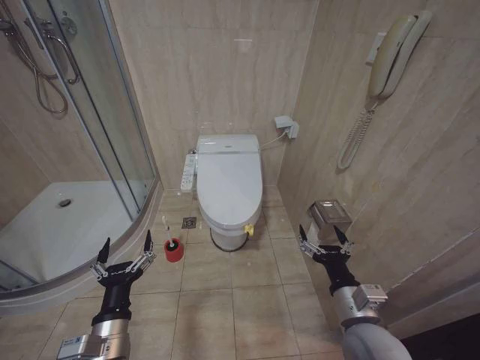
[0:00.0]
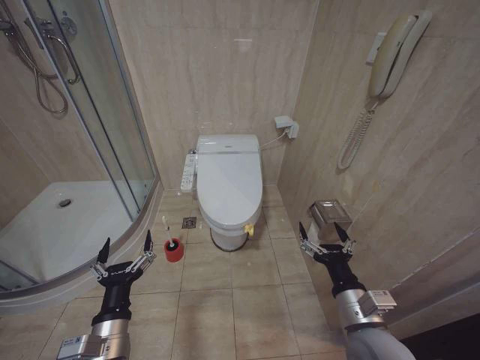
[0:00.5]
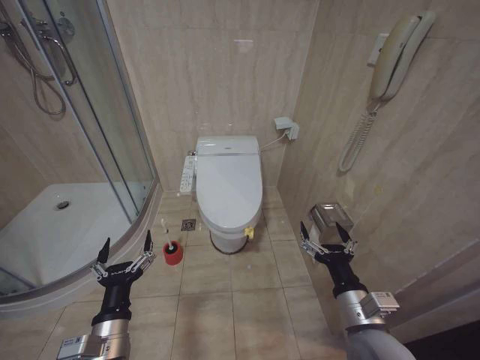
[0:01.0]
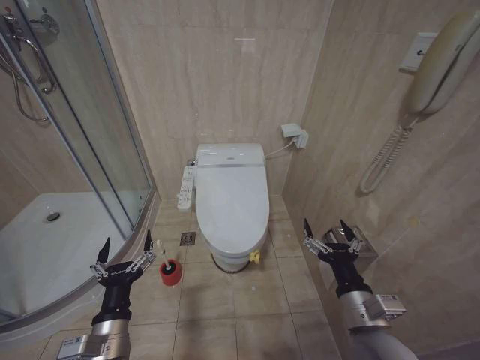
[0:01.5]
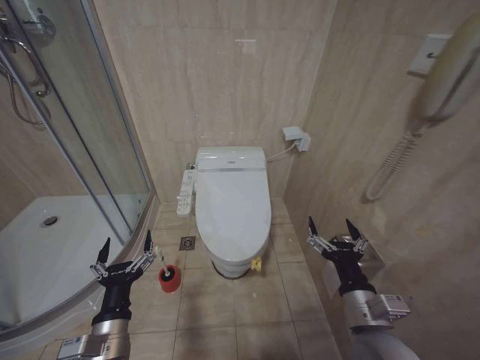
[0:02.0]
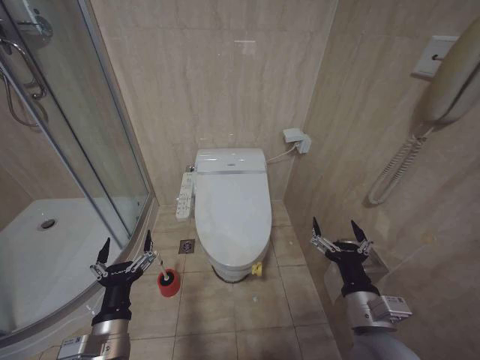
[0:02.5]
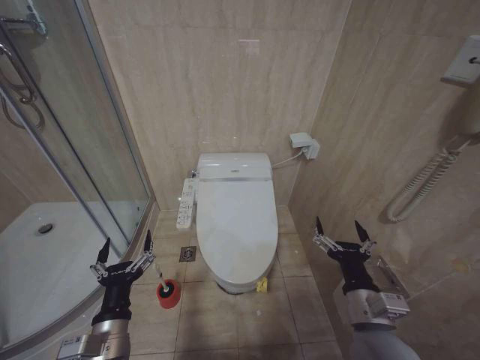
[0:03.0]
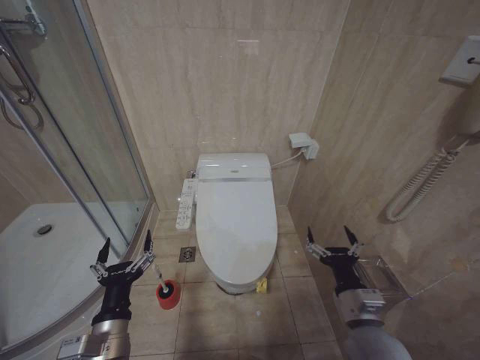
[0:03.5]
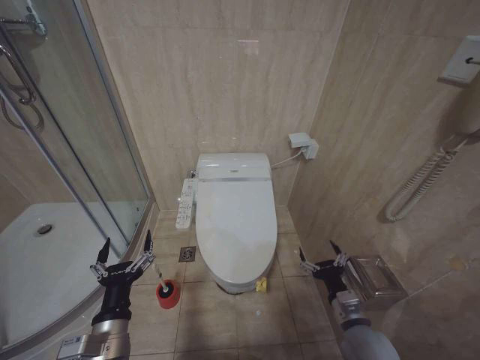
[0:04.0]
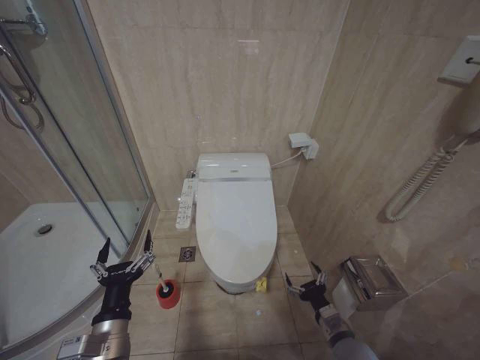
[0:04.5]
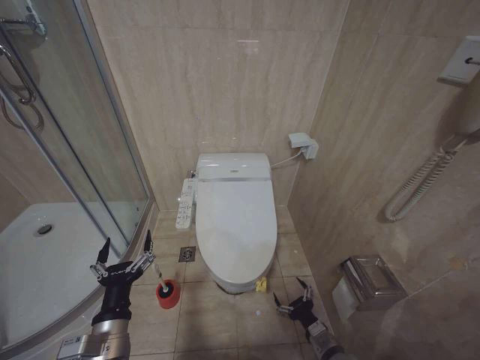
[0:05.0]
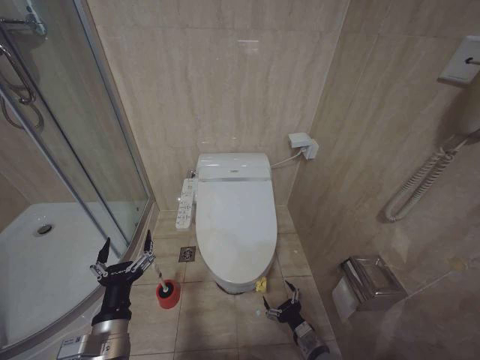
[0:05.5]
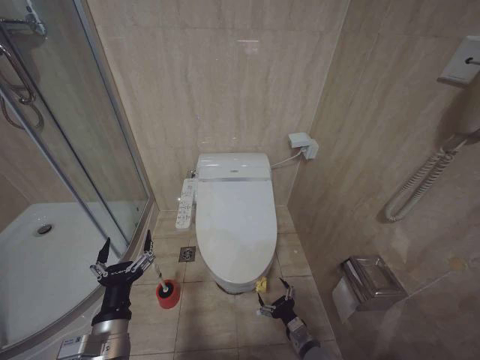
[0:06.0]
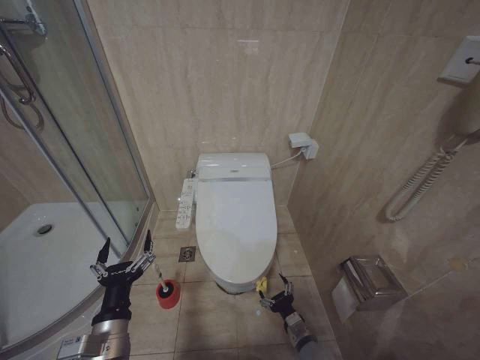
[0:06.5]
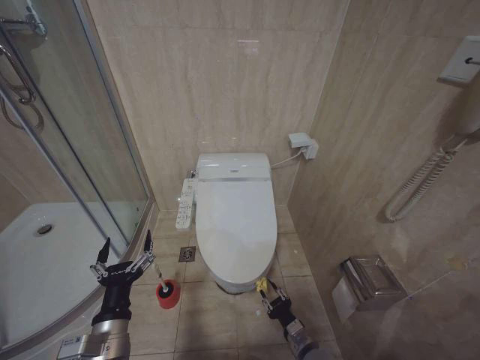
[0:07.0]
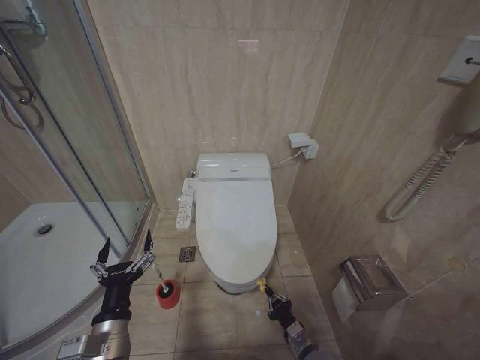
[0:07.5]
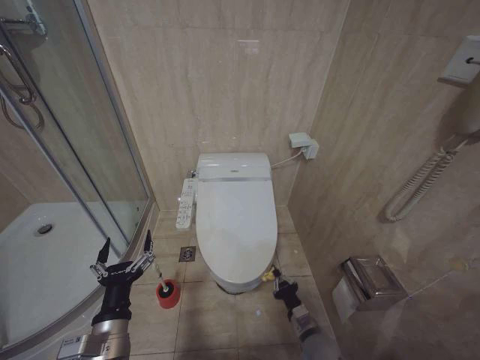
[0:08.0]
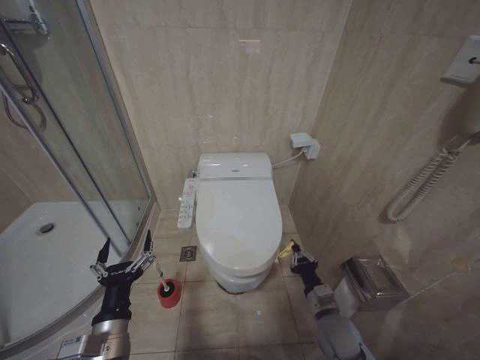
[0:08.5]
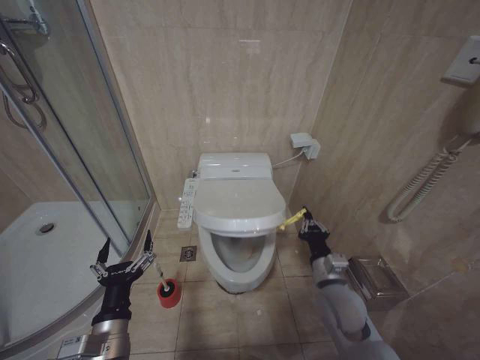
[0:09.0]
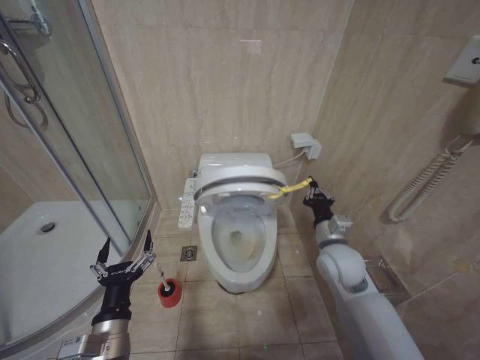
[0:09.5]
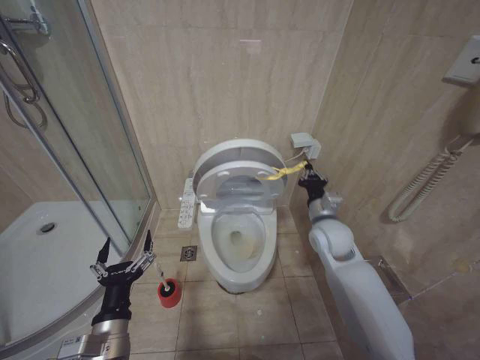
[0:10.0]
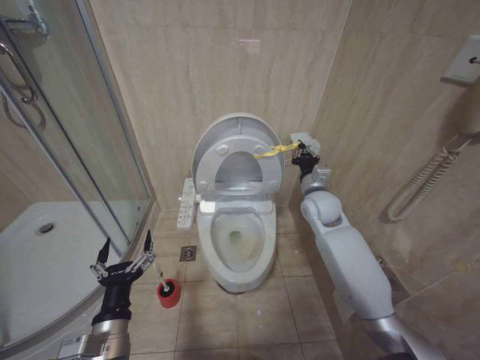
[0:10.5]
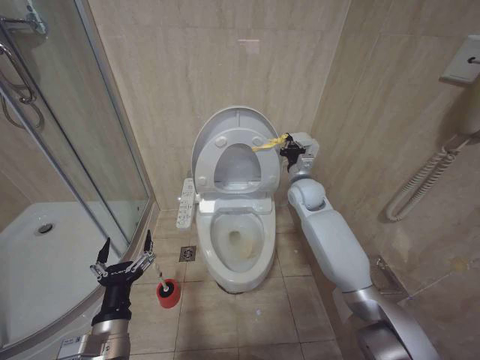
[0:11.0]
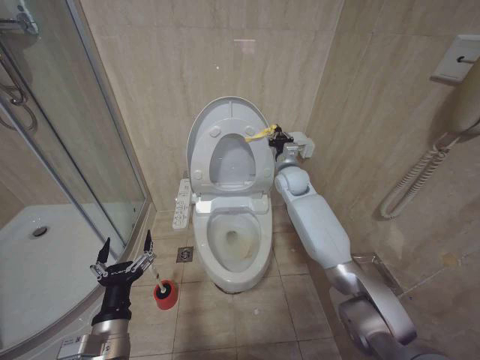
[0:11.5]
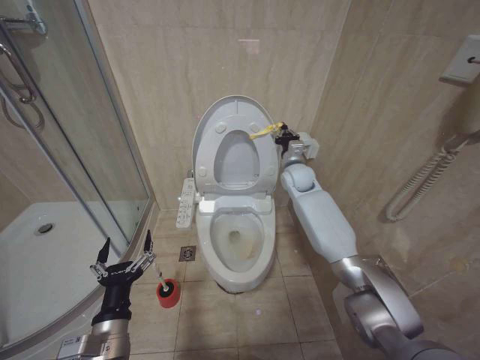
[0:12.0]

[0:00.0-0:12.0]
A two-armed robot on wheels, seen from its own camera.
Task of the whole recording: Open the toilet lid, clean the toilet bowl with a toilet brush, close the toilet lid, and flush.
0:02.0 to 0:04.0: The right gripper travels downward by about 10 cm.
0:04.0 to 0:06.0: The right gripper heads downward, covering roughly 15 cm.
0:06.0 to 0:08.0: The right gripper closes up.
0:08.0 to 0:10.0: The right gripper is displaced upward and forward by about 30 cm.
0:10.0 to 0:12.0: The right gripper is displaced forward and upward by roughly 20 cm.

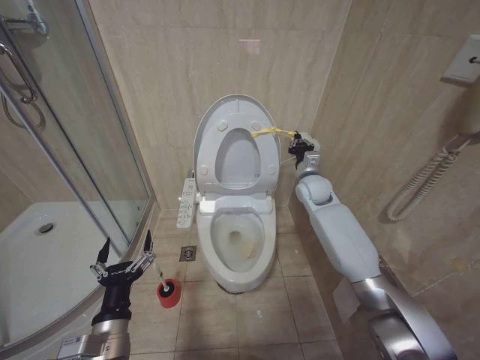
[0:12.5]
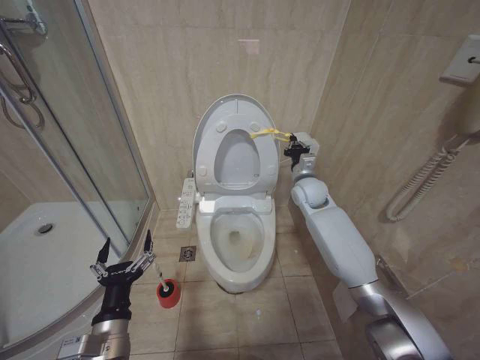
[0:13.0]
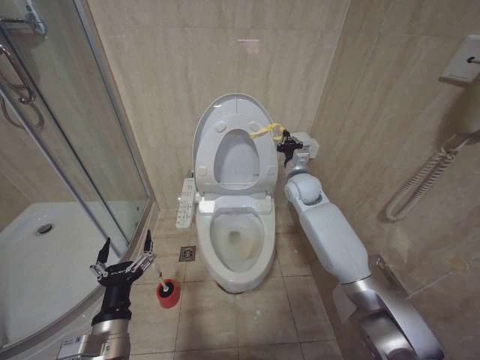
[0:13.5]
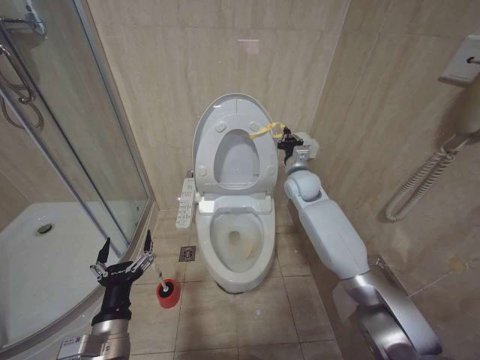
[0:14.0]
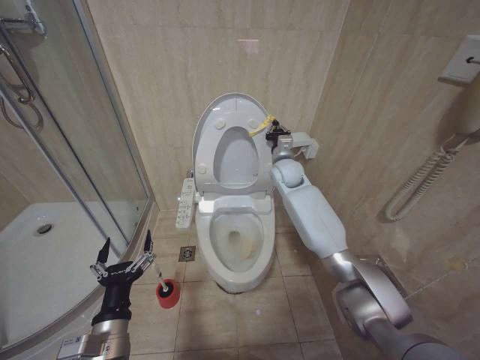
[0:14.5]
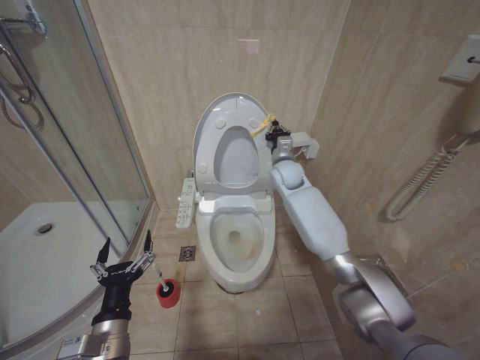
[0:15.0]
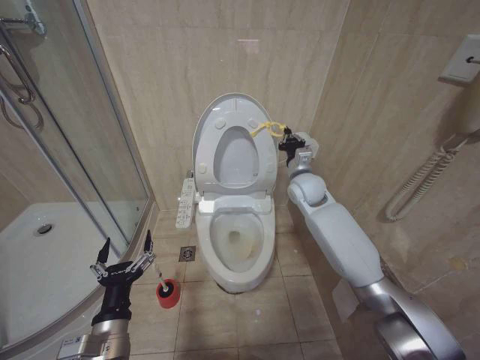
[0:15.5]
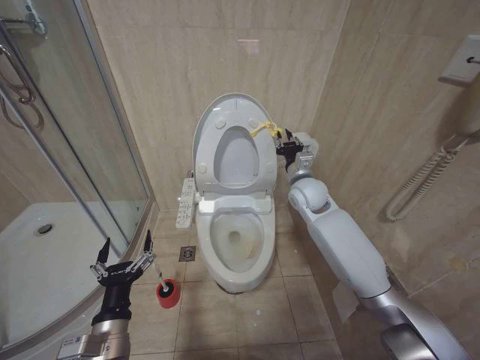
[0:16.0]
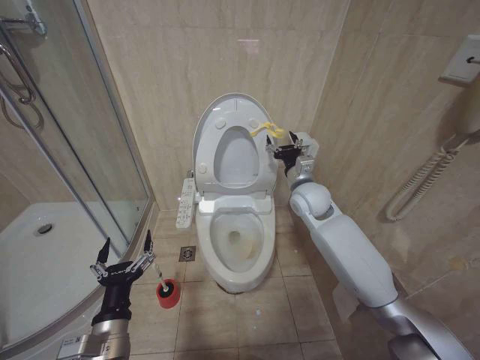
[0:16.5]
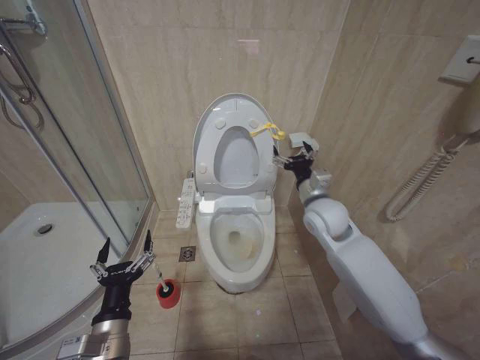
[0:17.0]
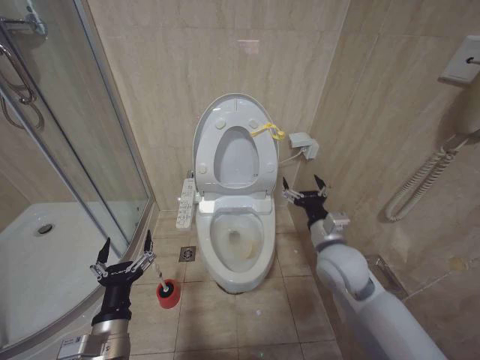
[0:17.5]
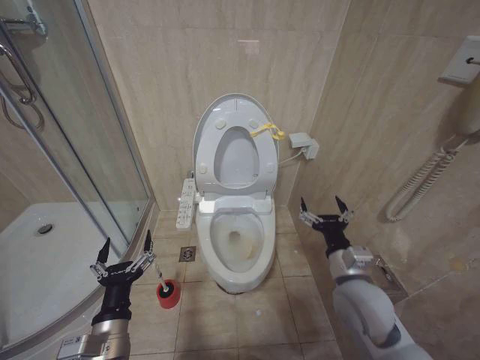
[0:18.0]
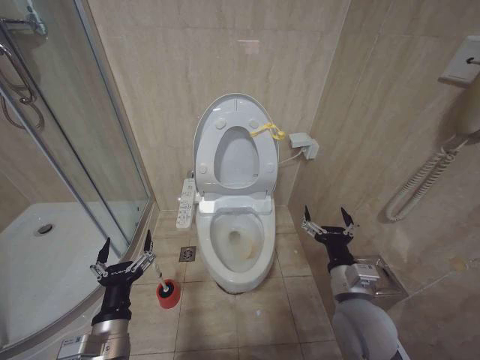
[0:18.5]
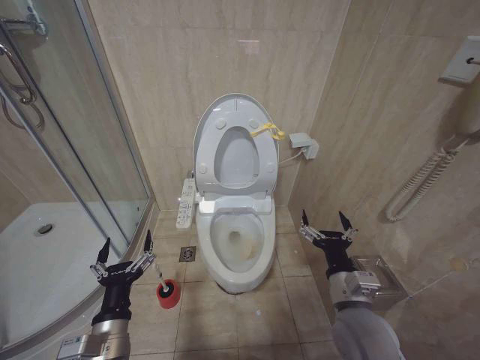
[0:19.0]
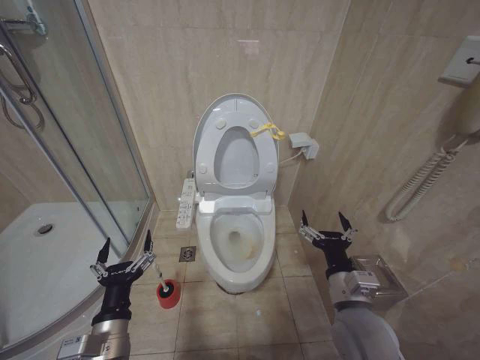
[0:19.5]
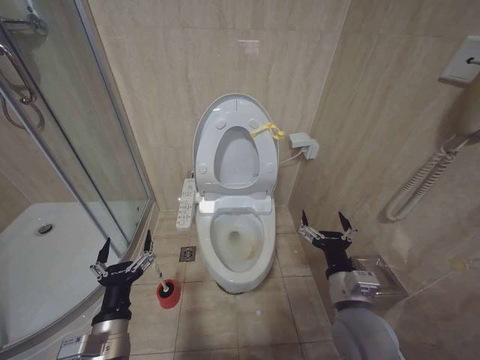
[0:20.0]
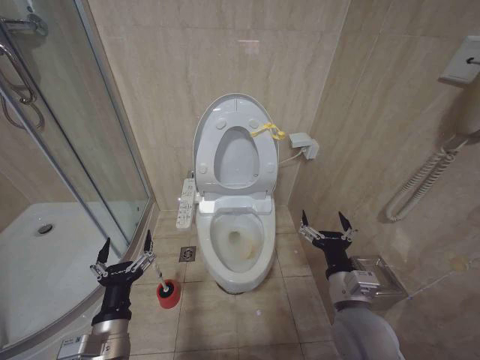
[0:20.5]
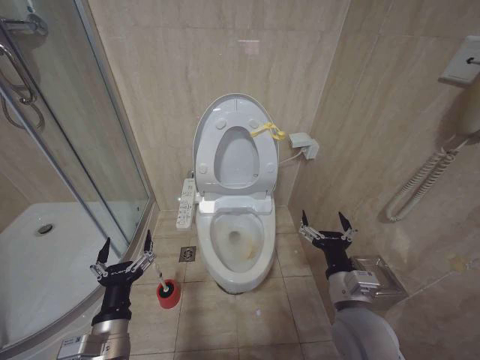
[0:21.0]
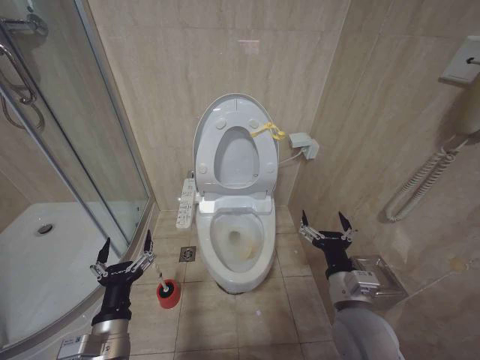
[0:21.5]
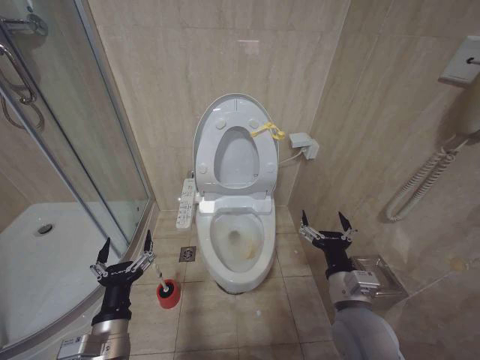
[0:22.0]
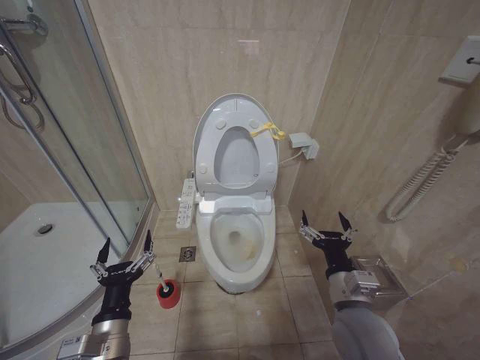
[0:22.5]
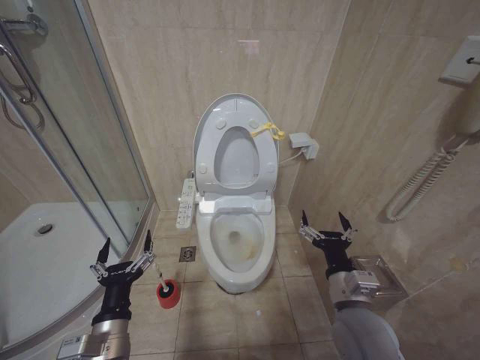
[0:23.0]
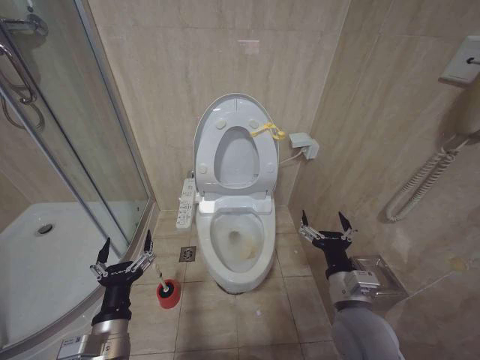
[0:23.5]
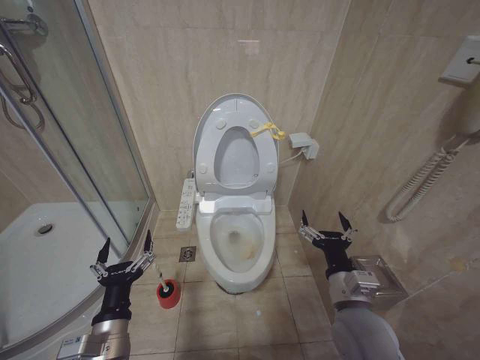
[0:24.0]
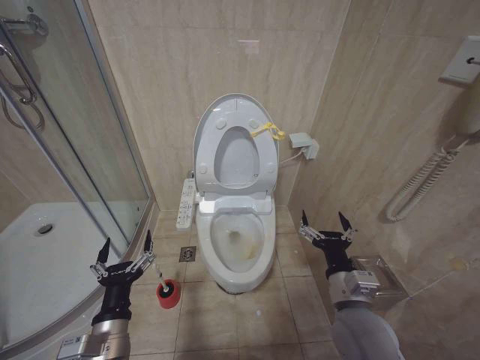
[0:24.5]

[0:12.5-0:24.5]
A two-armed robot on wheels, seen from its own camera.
Task of the whole recording: Open the toilet lid, clean the toilet bowl with a toilet brush, close the toilet lid, and flush.
0:12.5 to 0:14.5: The right gripper is displaced to the left by approximately 5 cm.
0:14.5 to 0:16.5: The right gripper shifts roughly 10 cm backward, and opens.
0:16.5 to 0:18.5: The right gripper is displaced backward and downward by roughly 25 cm, and opens its fingers.
0:18.5 to 0:20.5: The grippers move only a little.
0:20.5 to 0:24.5: The two grippers keep their place.

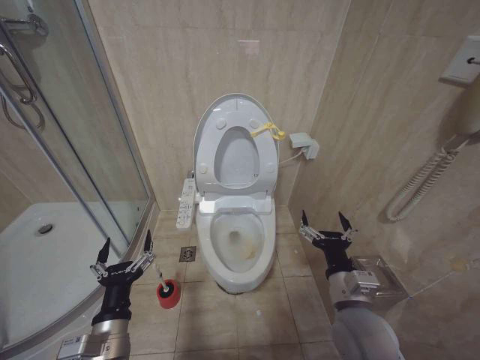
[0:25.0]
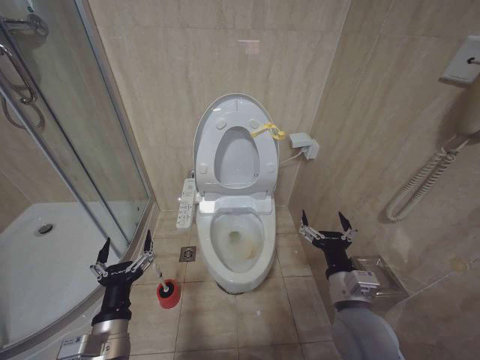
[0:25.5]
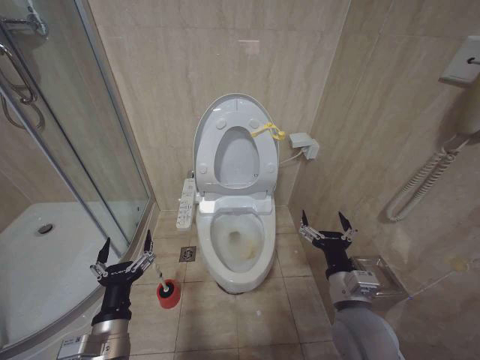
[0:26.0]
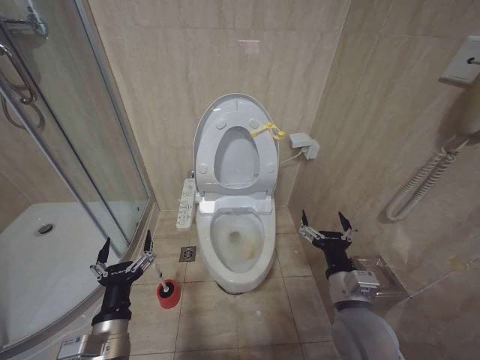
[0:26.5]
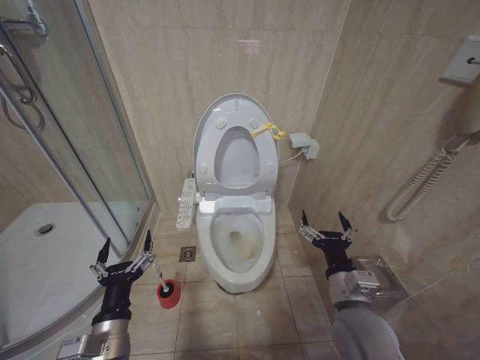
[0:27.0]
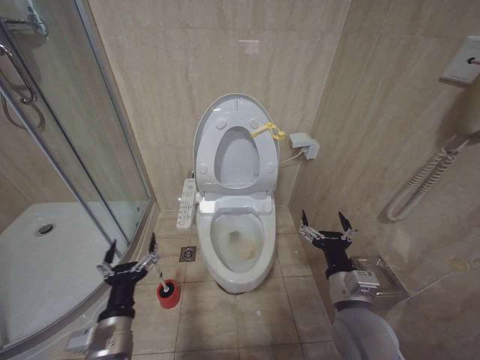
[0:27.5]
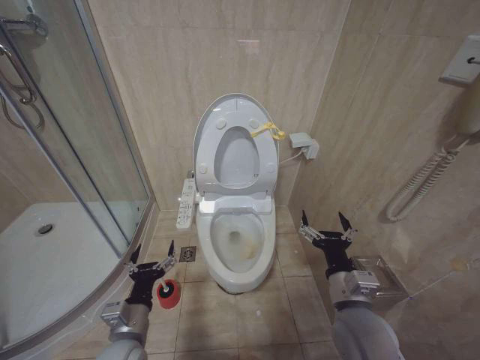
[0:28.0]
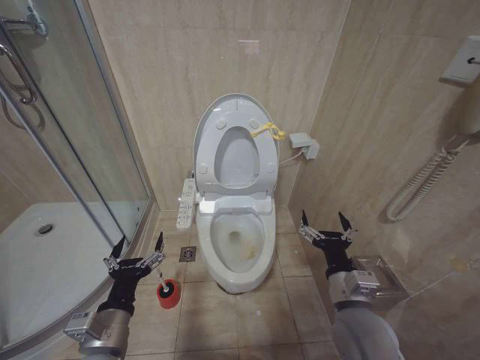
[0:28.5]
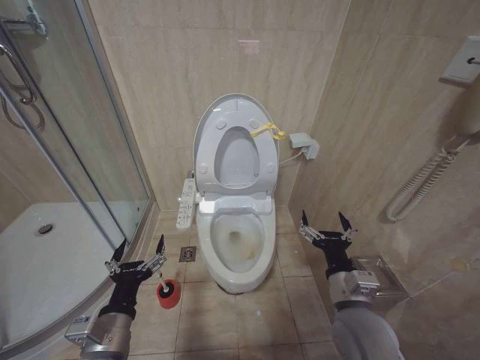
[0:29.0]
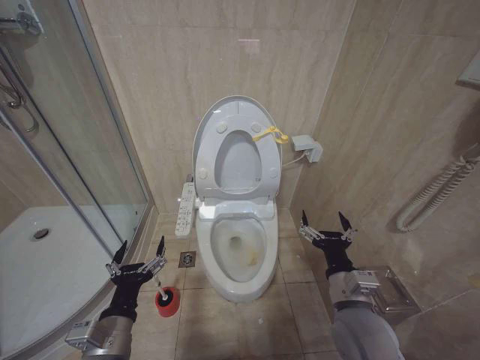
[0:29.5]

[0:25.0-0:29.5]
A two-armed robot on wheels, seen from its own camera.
Task of the whole recording: Open the toilet lid, clean the toilet bowl with a toilet brush, close the toilet lid, and flush.
0:25.0 to 0:27.0: Both grippers stay about where they are.
0:27.0 to 0:29.5: There are only small adjustments of the grippers.
